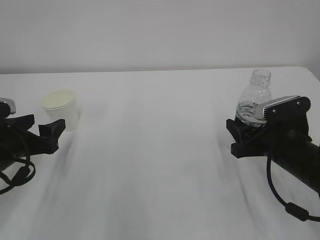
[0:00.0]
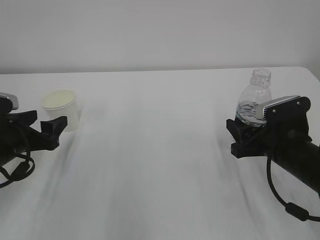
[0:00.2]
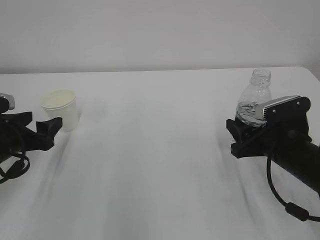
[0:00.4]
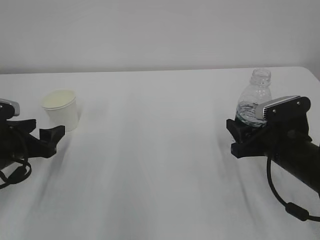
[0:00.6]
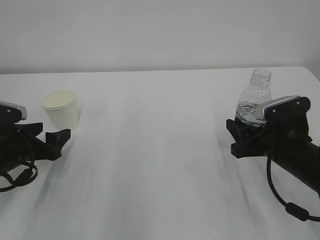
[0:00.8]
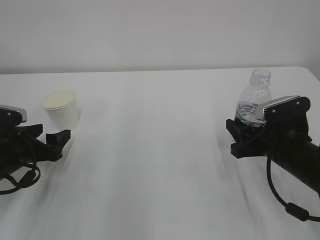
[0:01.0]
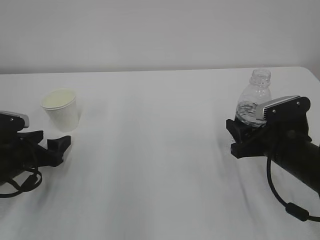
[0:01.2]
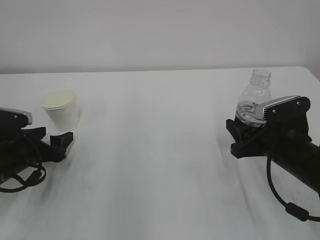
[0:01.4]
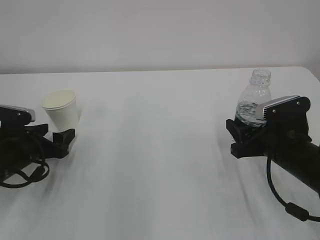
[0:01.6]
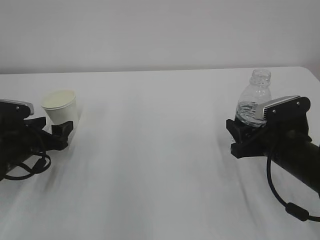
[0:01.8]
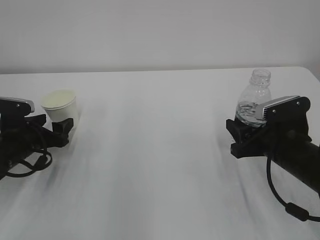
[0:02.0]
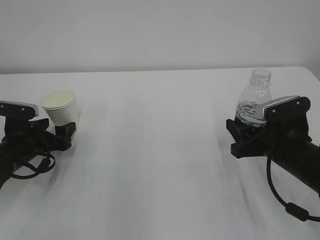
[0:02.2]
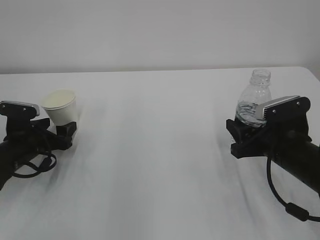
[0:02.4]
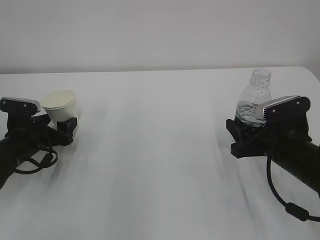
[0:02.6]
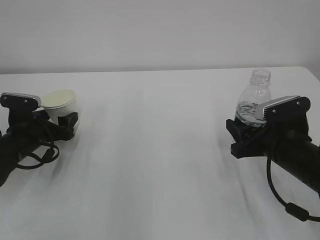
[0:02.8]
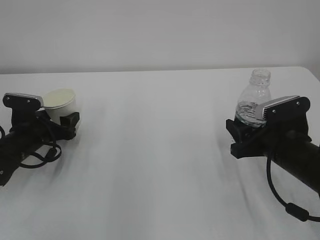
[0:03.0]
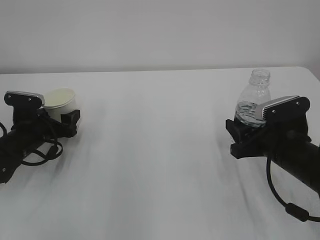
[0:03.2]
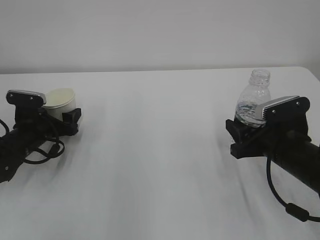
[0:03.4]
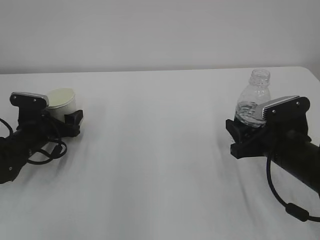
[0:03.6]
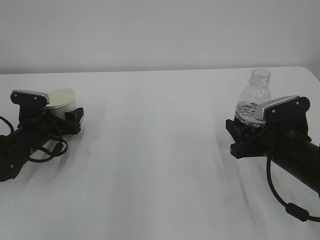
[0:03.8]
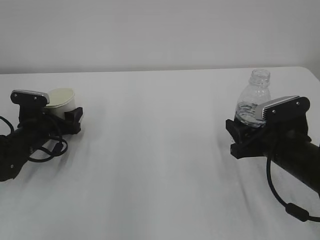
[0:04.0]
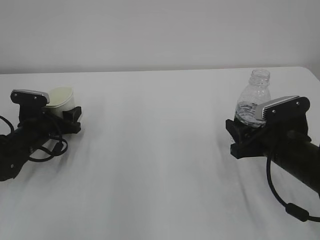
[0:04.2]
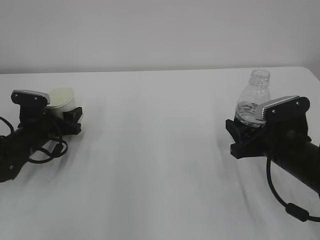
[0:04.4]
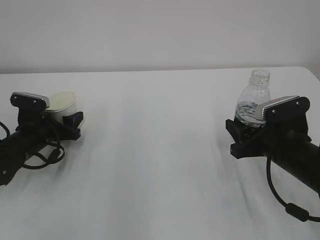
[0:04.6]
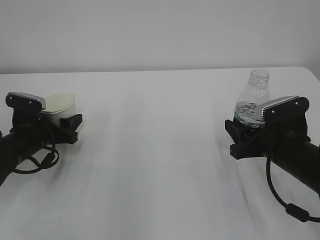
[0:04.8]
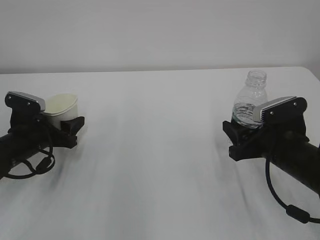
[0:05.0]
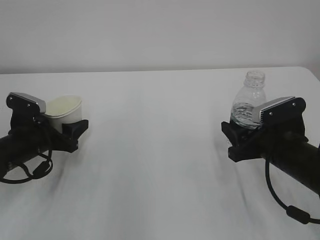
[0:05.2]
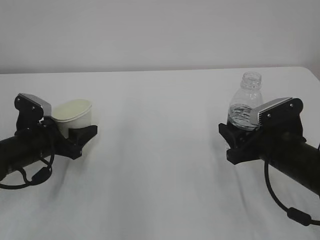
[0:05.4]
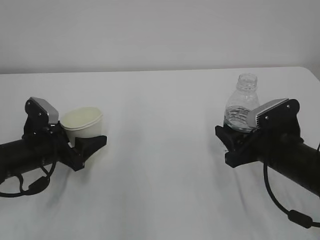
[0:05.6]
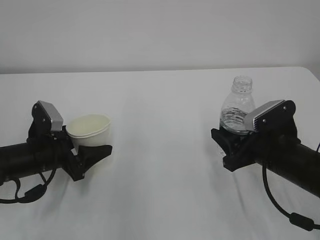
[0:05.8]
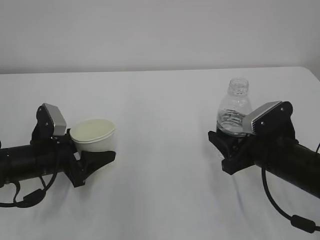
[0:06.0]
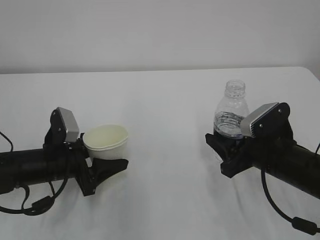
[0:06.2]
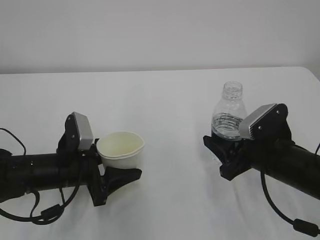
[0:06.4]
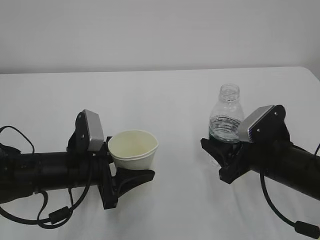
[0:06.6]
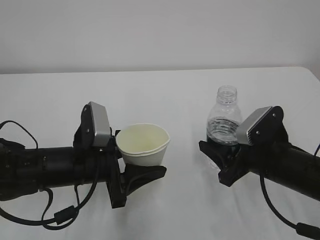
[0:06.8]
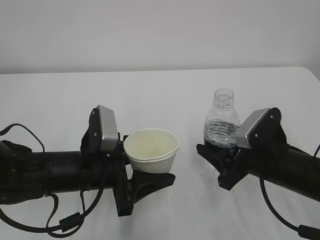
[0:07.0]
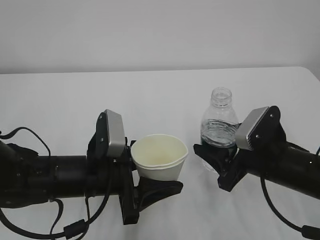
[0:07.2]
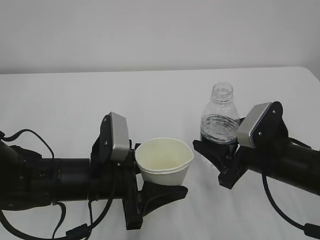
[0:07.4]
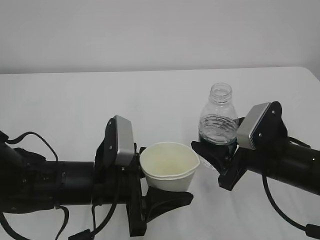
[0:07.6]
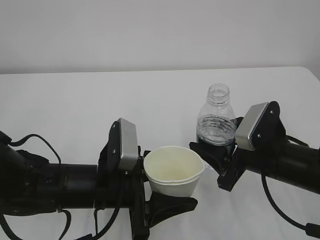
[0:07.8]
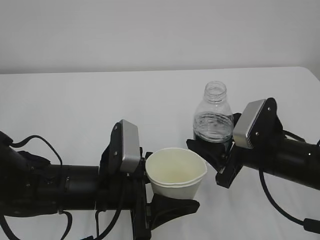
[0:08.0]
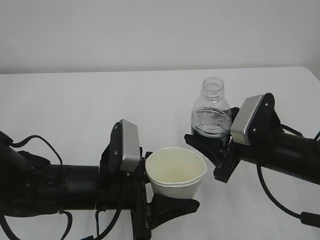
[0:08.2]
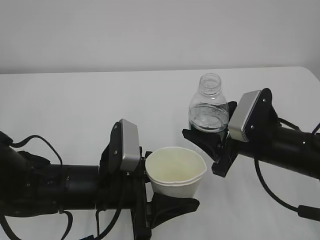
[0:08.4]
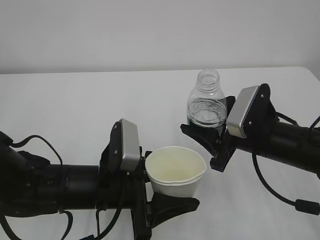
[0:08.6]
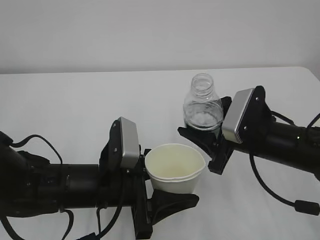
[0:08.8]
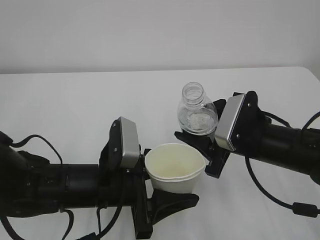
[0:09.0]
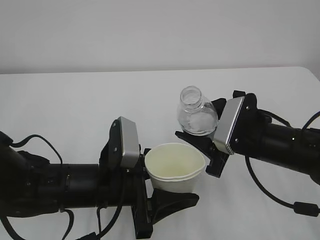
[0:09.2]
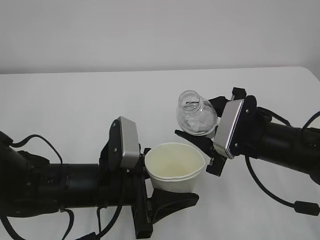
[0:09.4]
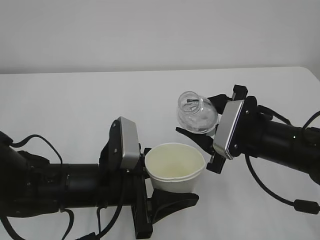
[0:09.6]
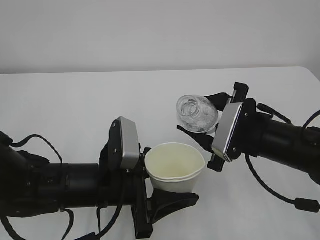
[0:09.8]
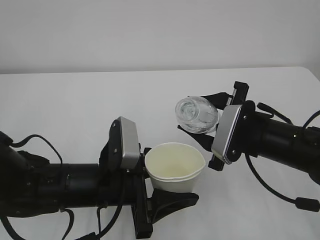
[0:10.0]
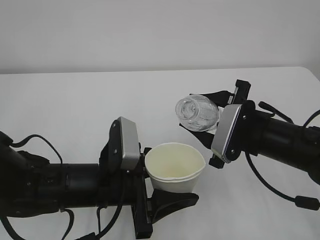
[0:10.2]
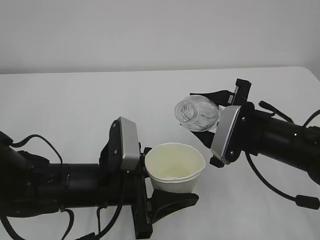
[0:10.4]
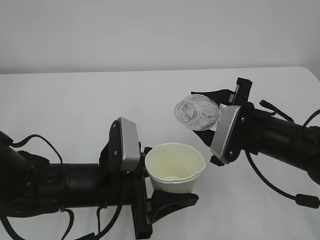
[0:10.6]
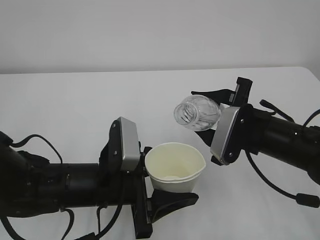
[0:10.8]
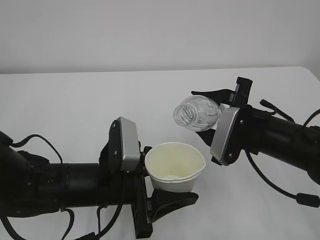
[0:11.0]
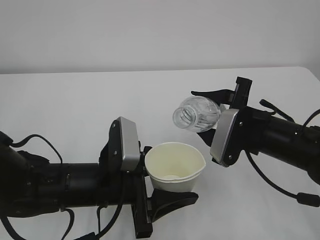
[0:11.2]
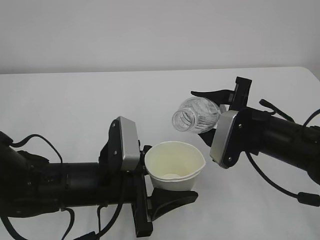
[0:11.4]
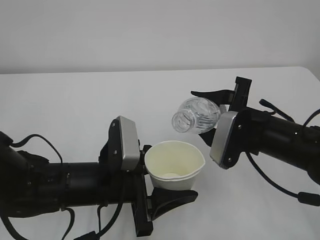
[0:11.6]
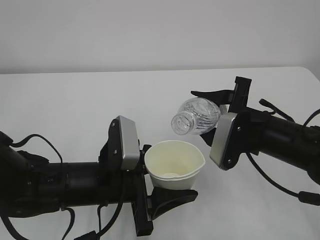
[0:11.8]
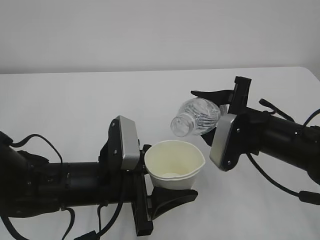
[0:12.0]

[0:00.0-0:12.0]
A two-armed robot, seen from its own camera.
0:00.0 to 0:01.6: The left gripper heads downward, covering some 5 cm.
0:01.6 to 0:03.0: The grippers stay close to where they were, moving slightly.
0:03.0 to 0:04.4: The left gripper closes.
0:04.4 to 0:06.0: The left gripper travels backward by roughly 10 cm.
0:06.0 to 0:07.6: The left gripper is displaced to the right and backward by about 15 cm.
0:07.6 to 0:09.0: There are only small adjustments of the grippers.
0:10.4 to 0:12.0: The grippers stay close to where they were, moving slightly.

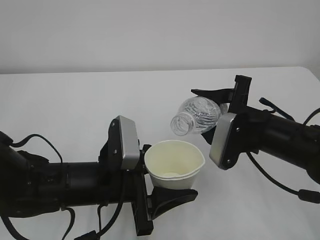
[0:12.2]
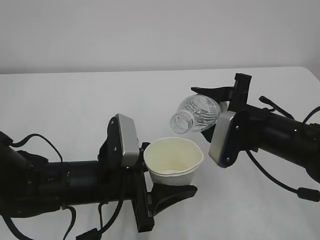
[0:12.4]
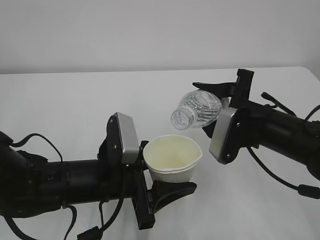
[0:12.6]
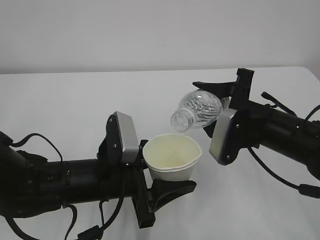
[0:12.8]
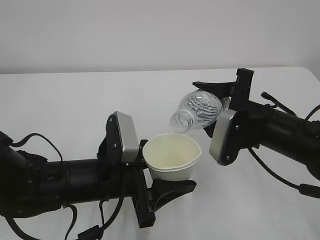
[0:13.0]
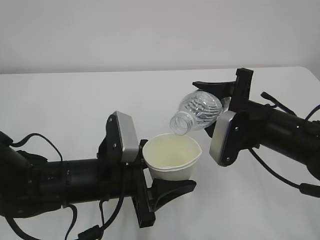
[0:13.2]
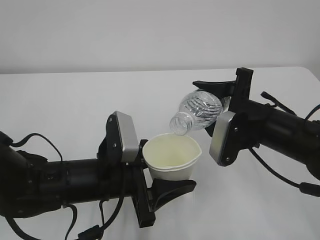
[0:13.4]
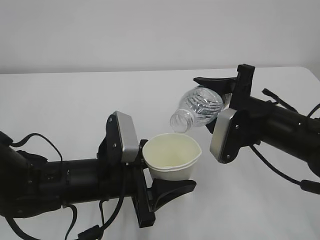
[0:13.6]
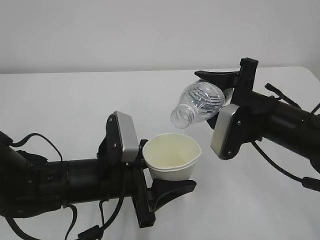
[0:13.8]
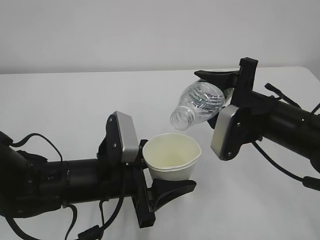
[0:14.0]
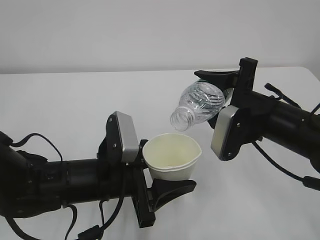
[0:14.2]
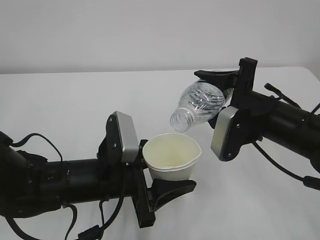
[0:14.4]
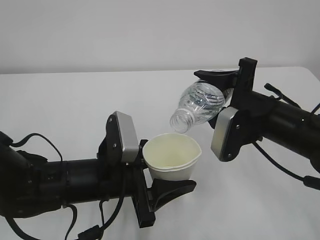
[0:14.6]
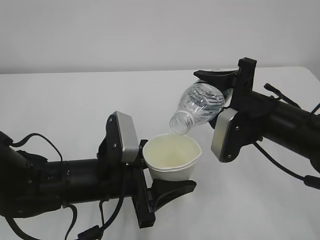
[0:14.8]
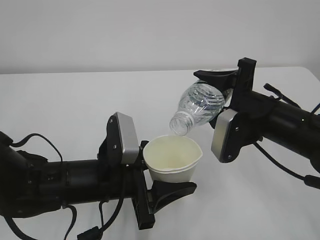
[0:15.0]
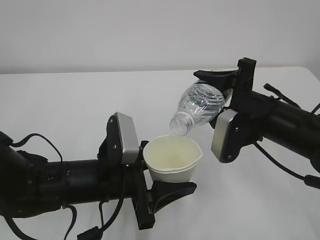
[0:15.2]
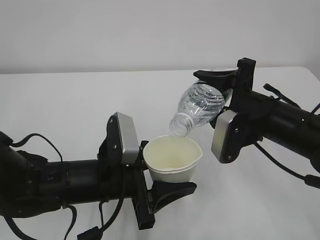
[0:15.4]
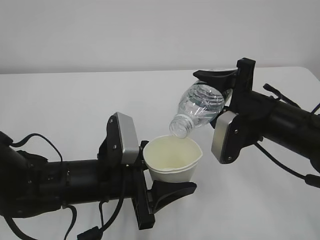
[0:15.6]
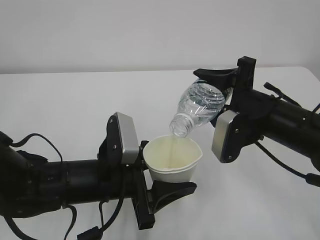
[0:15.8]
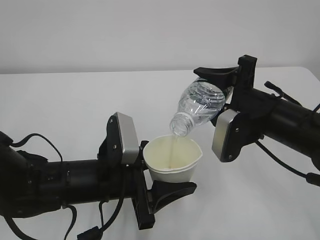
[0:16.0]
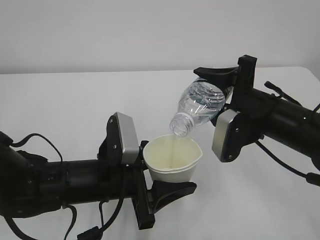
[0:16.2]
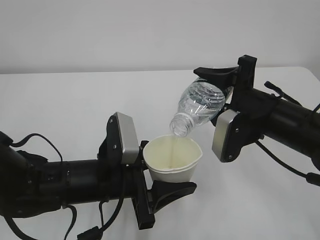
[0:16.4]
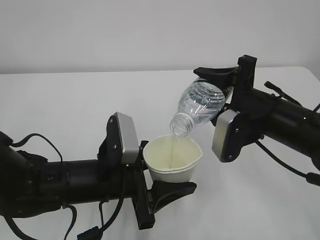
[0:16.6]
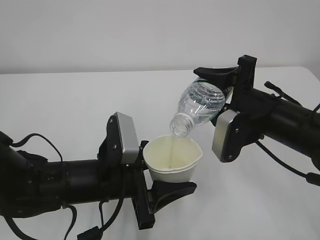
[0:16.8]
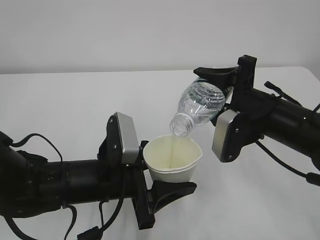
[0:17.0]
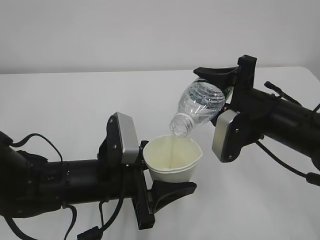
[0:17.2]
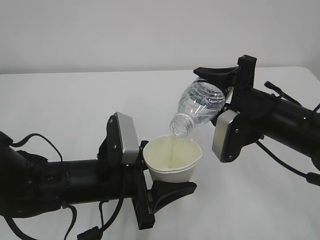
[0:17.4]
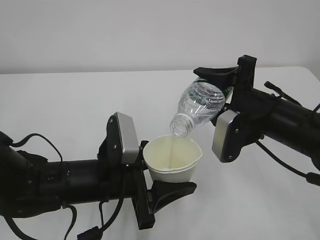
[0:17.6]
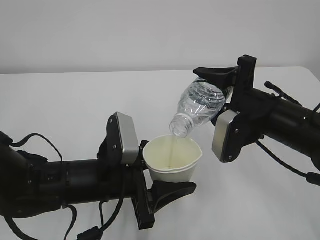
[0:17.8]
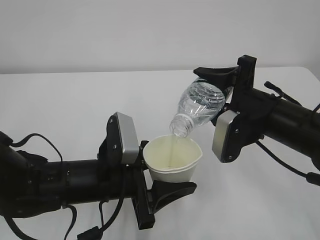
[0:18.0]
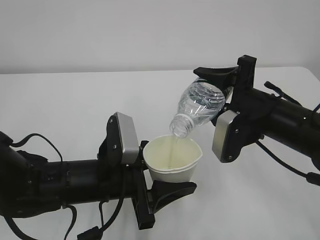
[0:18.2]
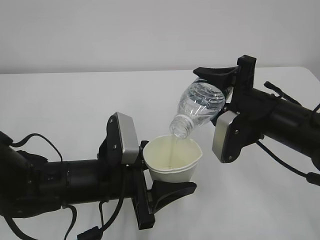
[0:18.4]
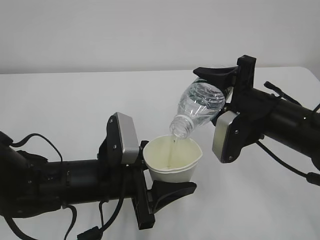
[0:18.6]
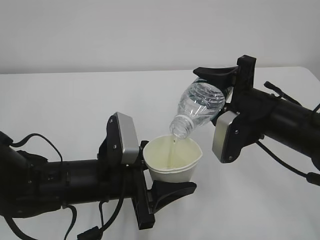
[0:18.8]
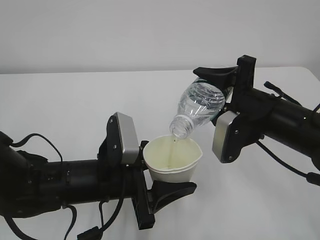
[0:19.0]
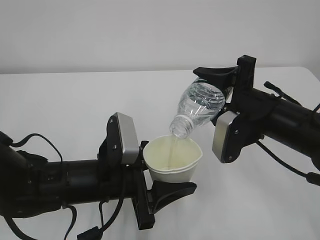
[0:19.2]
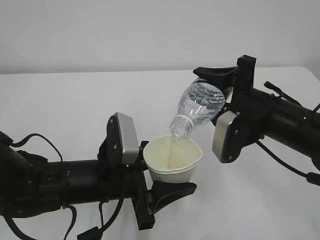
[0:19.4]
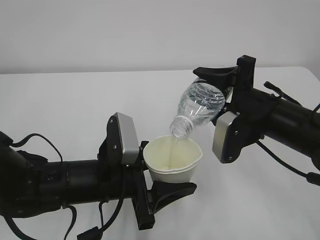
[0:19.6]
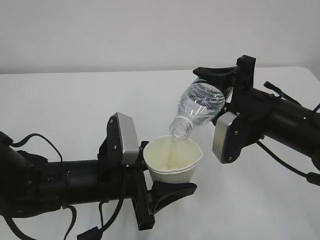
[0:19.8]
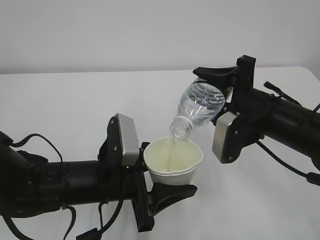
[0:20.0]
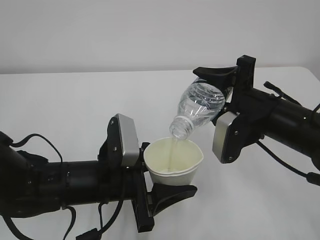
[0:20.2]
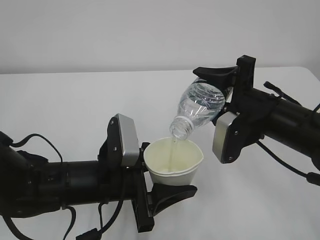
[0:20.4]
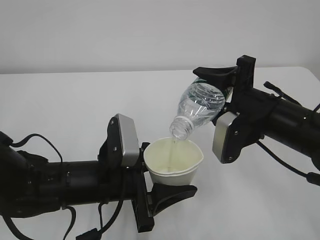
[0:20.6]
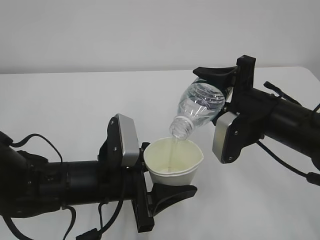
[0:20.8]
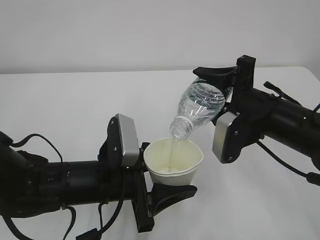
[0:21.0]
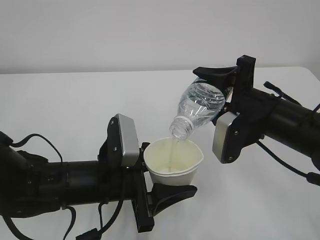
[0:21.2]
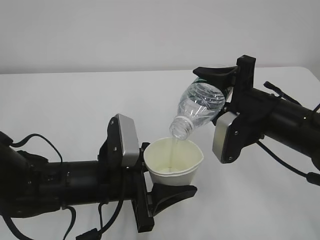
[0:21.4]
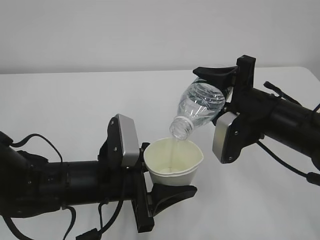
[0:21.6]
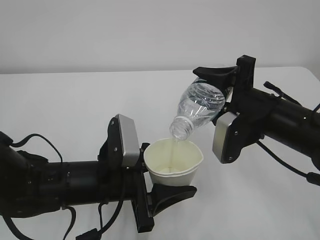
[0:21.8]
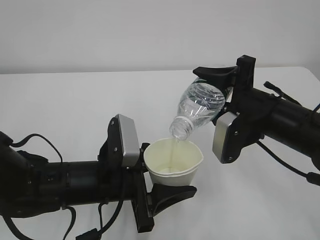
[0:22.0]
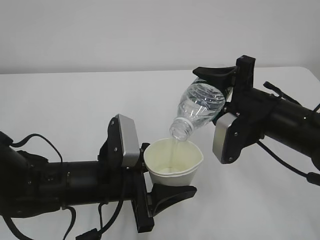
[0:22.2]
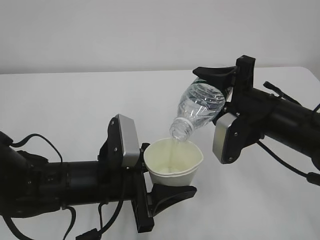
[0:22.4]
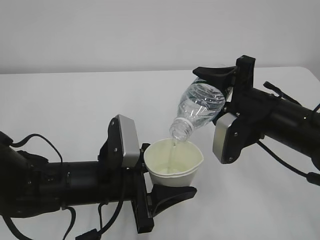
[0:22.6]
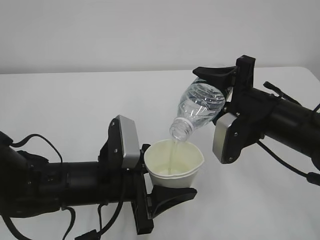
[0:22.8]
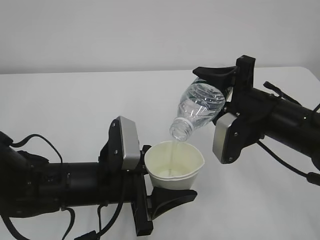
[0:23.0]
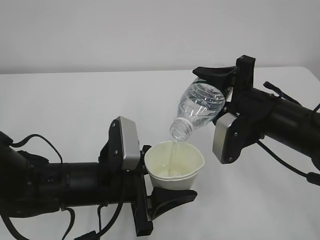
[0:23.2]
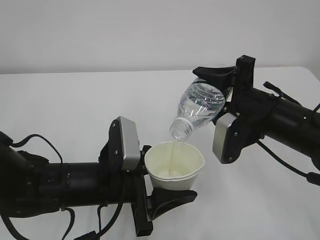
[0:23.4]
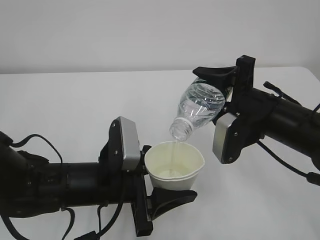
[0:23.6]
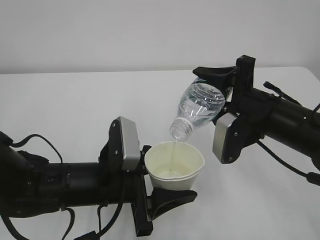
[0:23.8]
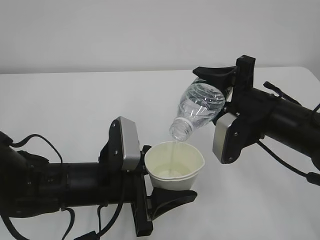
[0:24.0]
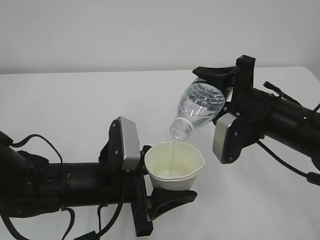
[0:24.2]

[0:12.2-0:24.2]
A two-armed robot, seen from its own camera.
0:12.2 to 0:15.2: There are only small adjustments of the grippers.
0:15.2 to 0:18.2: Both grippers stay put.
0:18.2 to 0:24.2: The two grippers keep their place.
